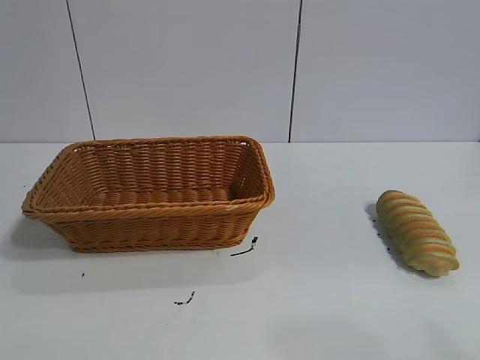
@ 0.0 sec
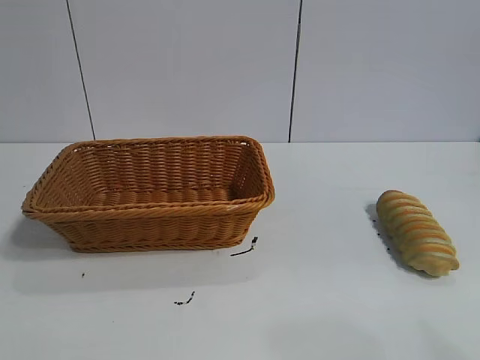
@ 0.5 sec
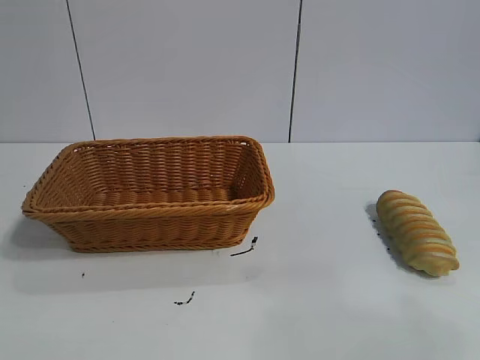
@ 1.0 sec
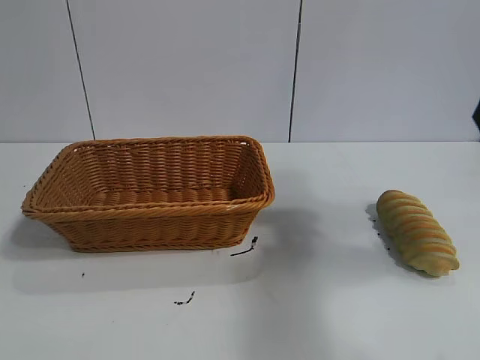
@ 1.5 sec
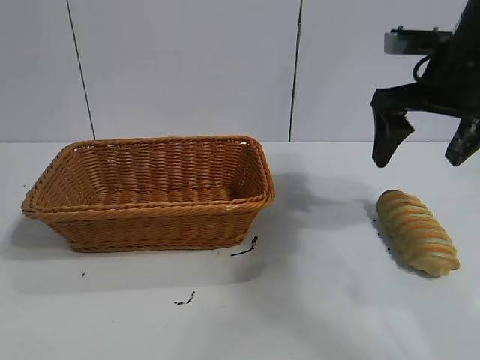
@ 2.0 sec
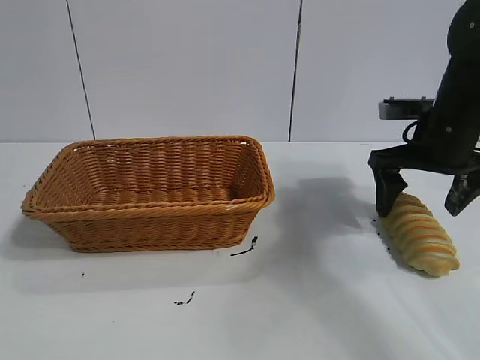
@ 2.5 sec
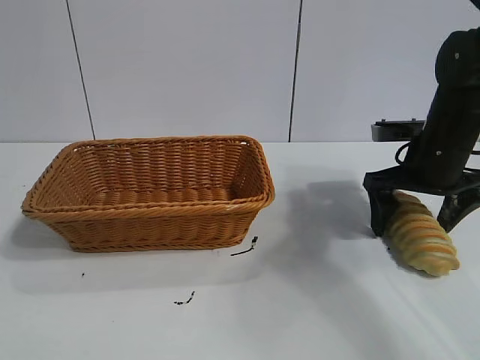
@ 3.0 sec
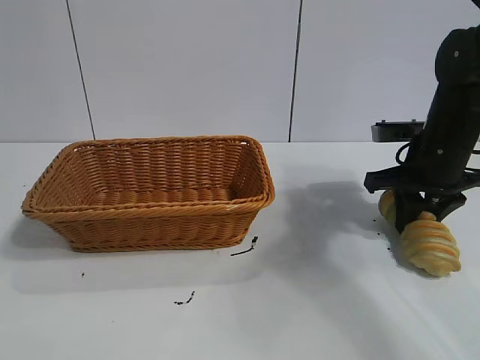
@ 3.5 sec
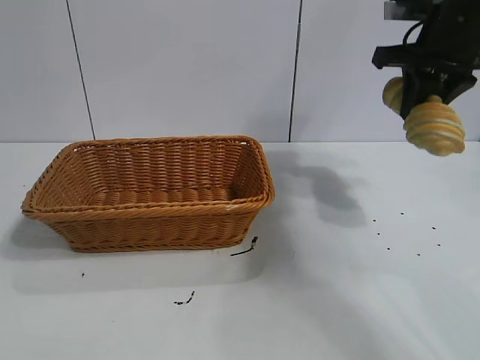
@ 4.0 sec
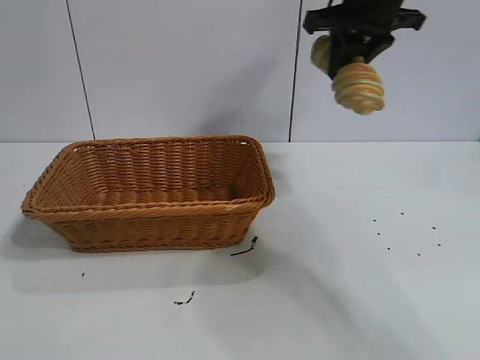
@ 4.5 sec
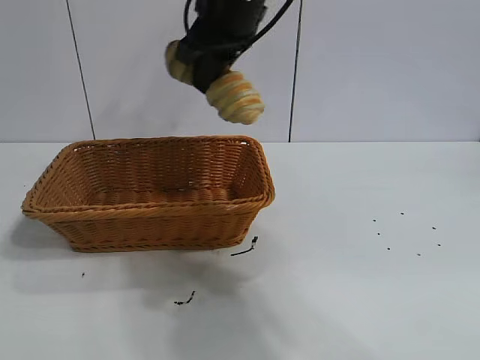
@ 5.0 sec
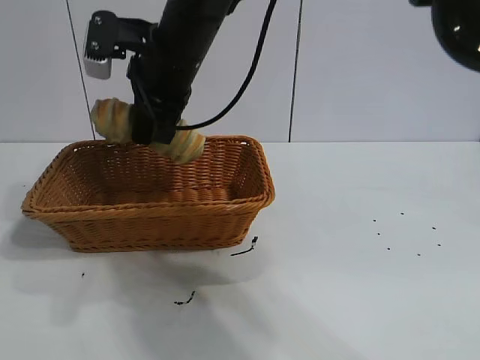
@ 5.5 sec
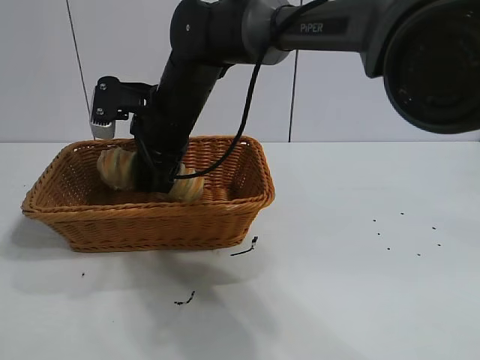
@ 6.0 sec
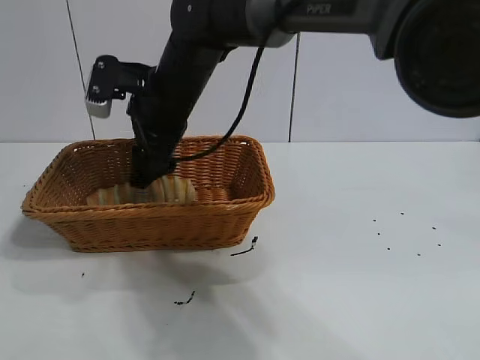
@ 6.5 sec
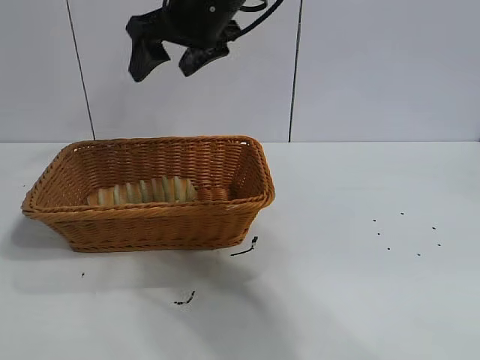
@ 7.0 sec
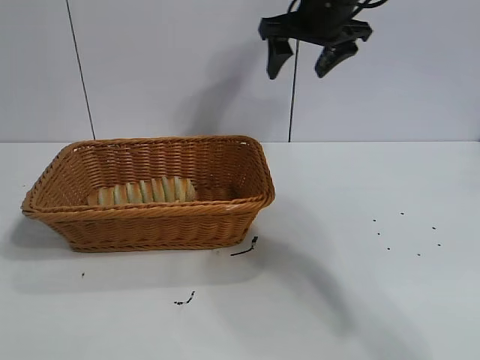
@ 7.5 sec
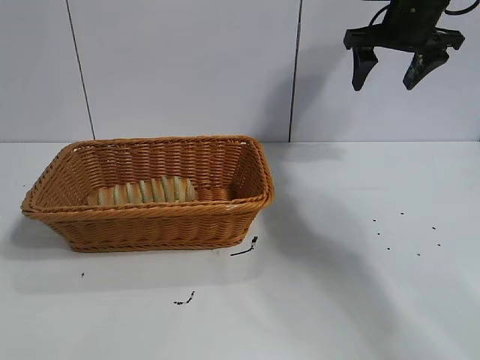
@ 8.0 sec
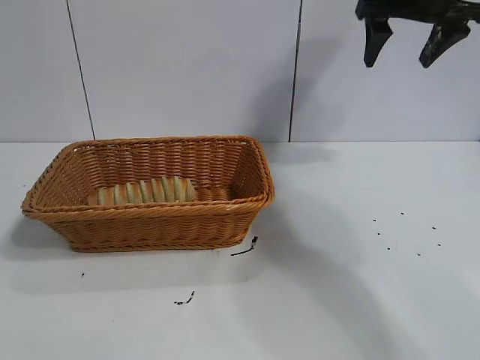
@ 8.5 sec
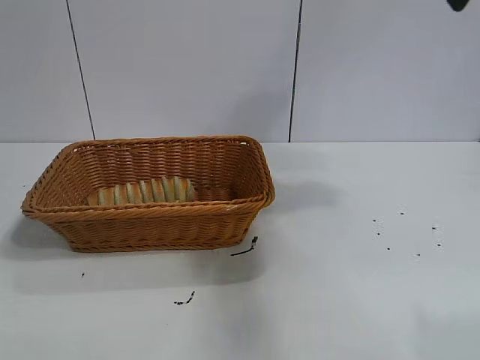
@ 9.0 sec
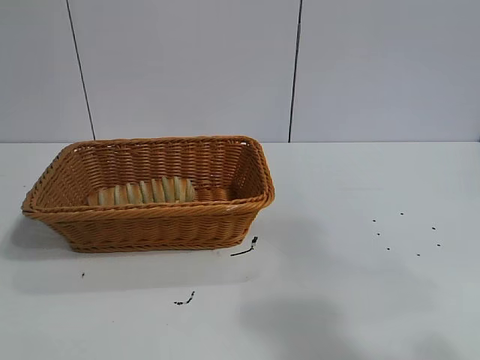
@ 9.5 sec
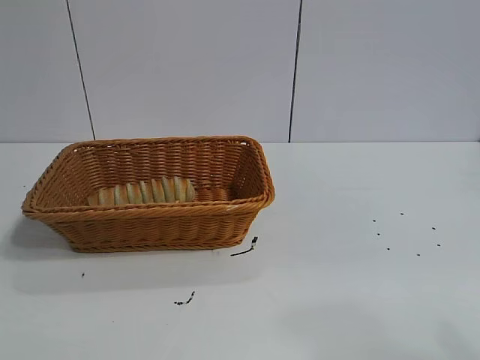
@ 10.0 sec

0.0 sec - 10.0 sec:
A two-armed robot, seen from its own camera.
Task of the whole recording: pick up the long bread and put it into the basket.
Step, 2.0 sec - 3.5 sec: Grasp the long bread with right gripper.
Step, 4.0 sec - 6.5 sec: Place the long bread in the basket with right gripper.

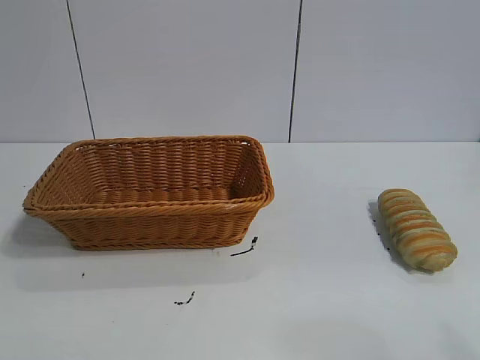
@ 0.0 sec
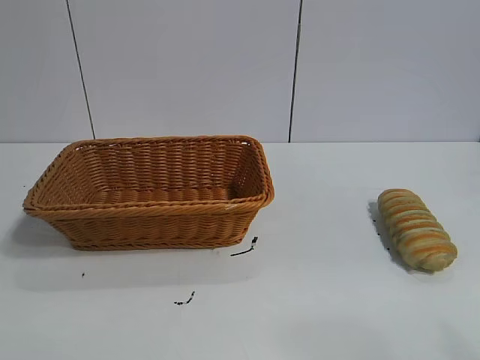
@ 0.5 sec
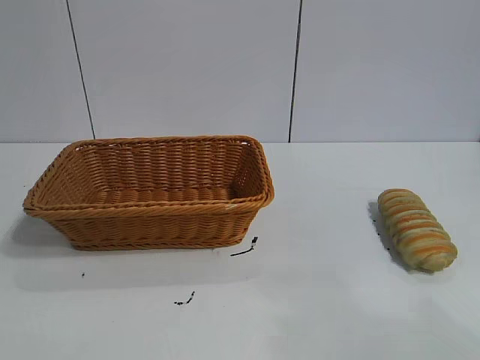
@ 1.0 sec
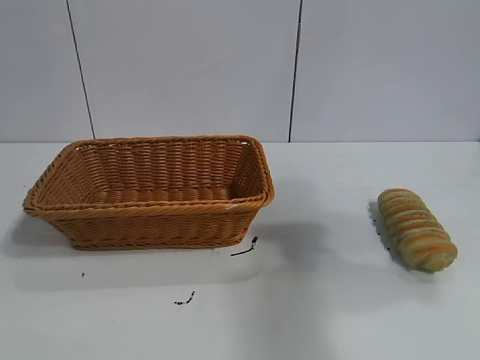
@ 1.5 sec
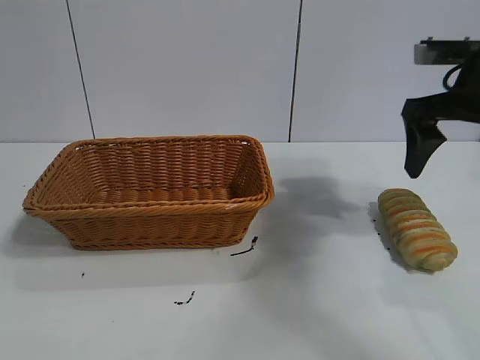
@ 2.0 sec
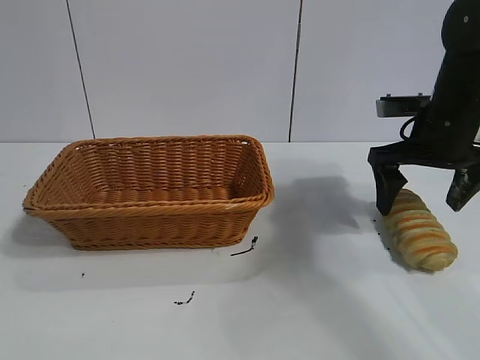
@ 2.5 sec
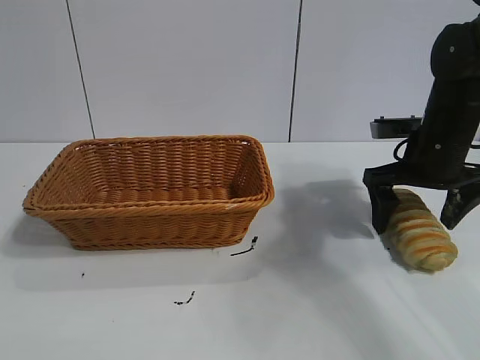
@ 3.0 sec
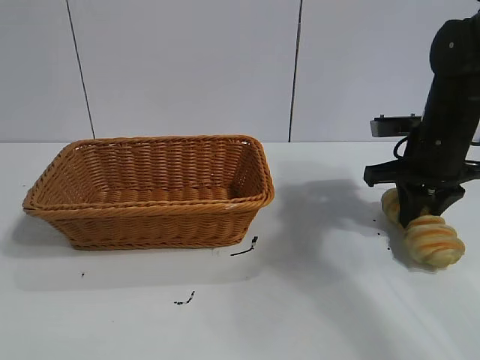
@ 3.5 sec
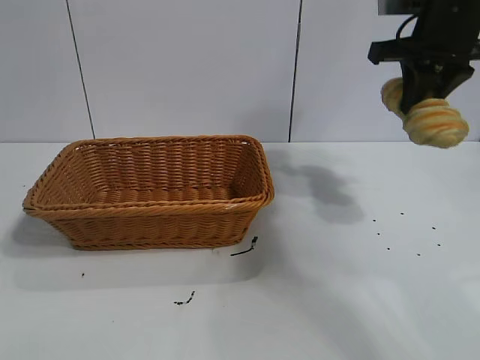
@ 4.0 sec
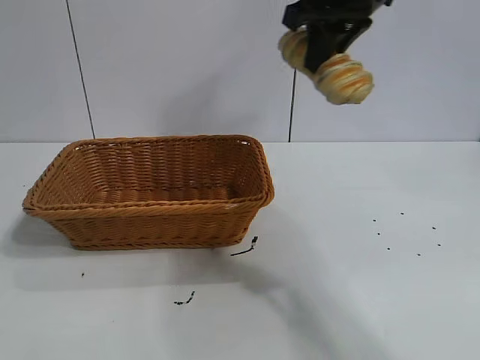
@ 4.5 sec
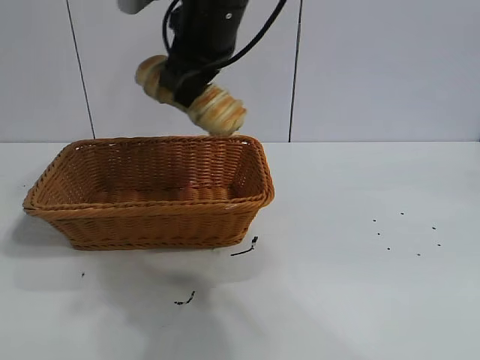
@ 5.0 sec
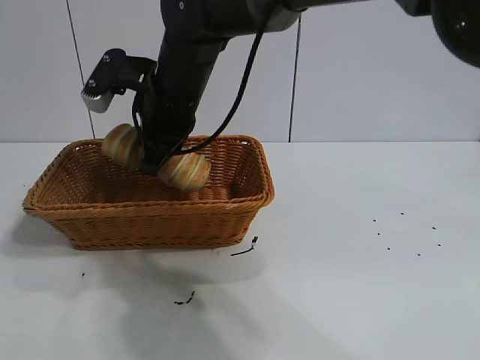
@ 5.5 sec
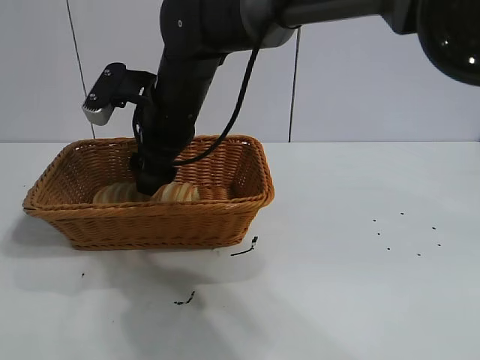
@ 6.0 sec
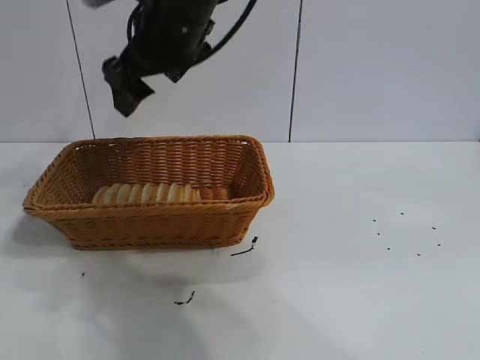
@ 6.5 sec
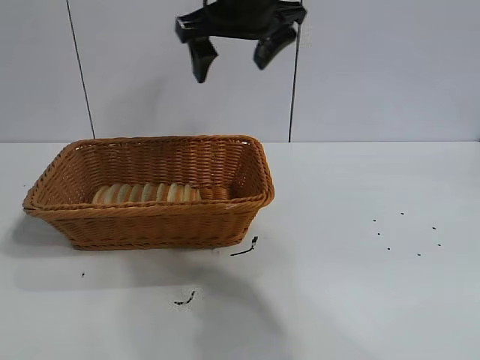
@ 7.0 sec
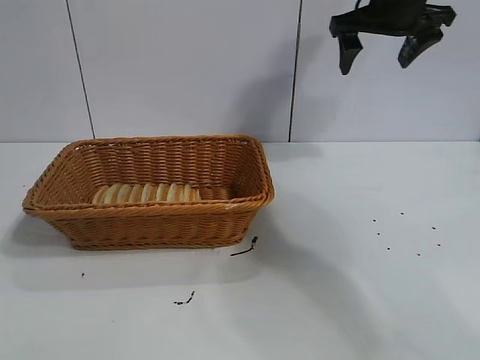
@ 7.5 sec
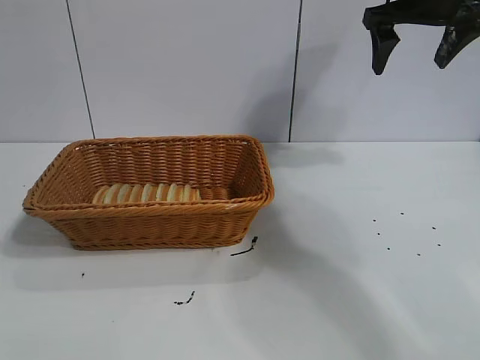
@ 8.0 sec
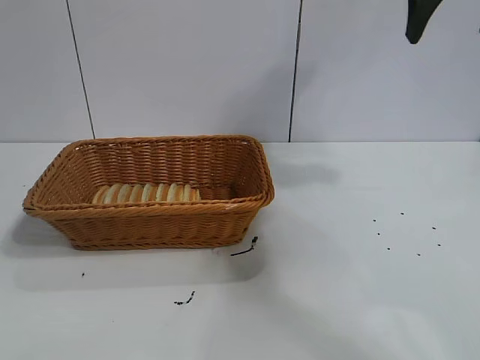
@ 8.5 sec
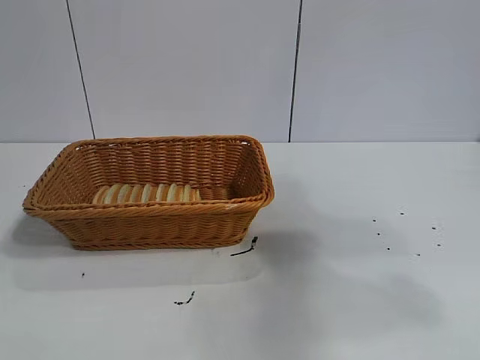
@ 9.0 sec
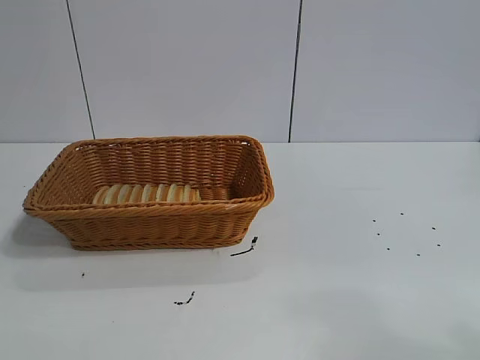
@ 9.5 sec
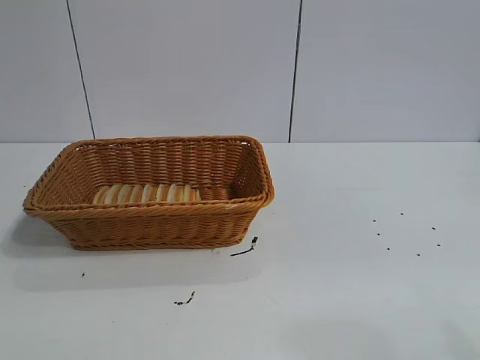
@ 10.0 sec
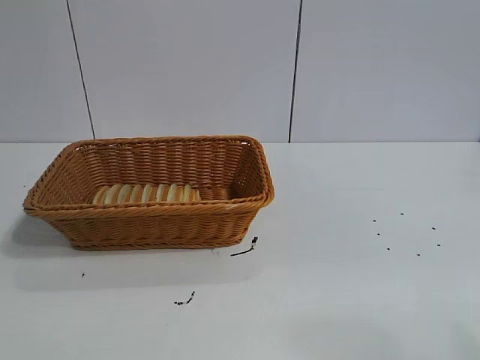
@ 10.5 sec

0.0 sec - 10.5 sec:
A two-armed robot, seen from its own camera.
Task of the whole recording: pick up the long bread and put it into the basket.
Step, 2.0 sec - 3.5 sec: Grasp the long bread with right gripper.
Step, 4.0 sec - 6.0 sec: Place the long bread in the basket with right gripper.
